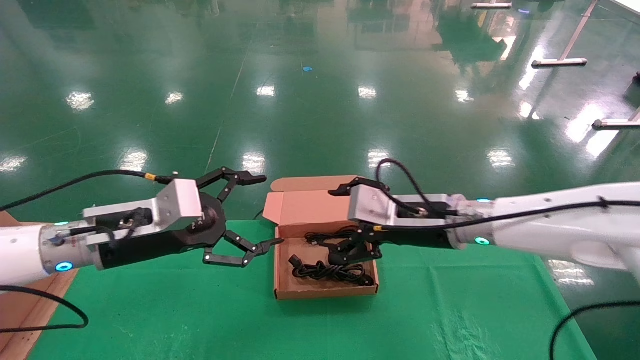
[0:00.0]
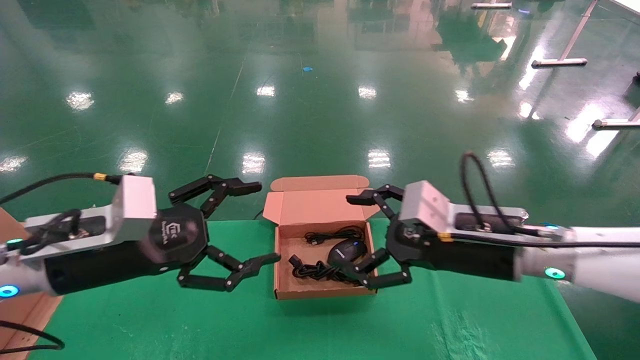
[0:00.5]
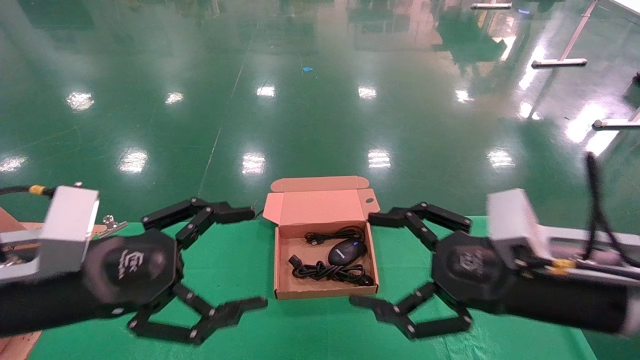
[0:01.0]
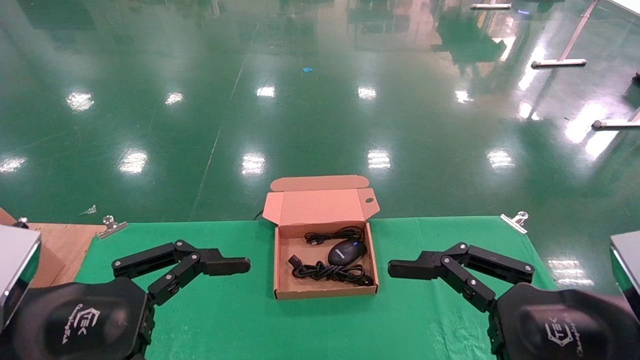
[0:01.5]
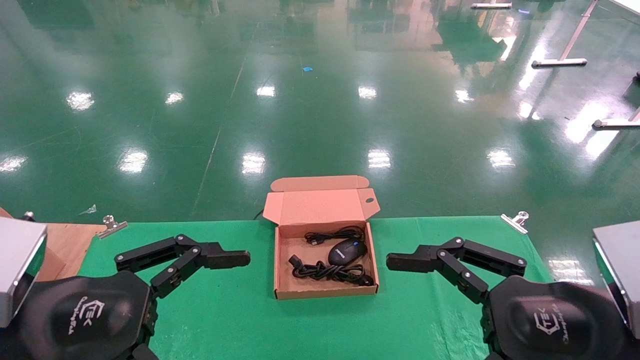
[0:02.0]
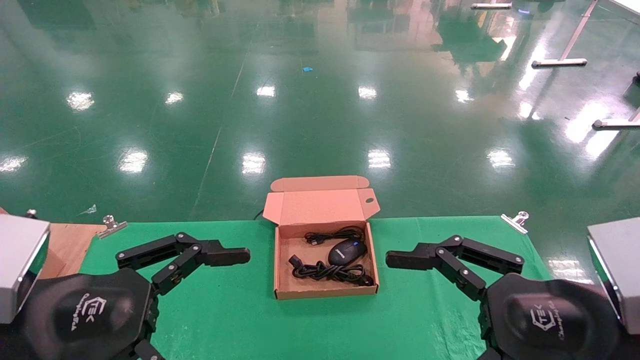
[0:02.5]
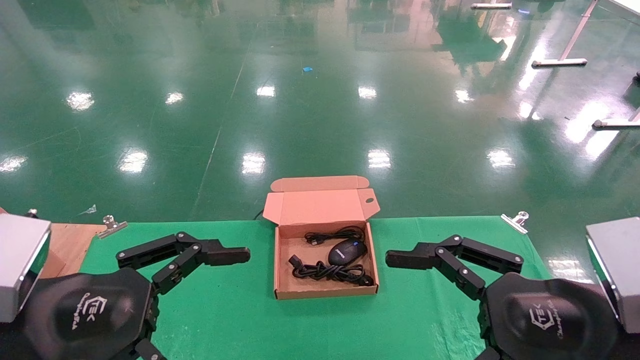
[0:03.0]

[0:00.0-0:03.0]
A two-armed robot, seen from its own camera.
0:00.0 to 0:01.5: The left gripper shifts some 15 cm backward. Meanwhile the right gripper is displaced backward and to the right by some 25 cm.
0:01.5 to 0:03.0: Both grippers stay about where they are.
